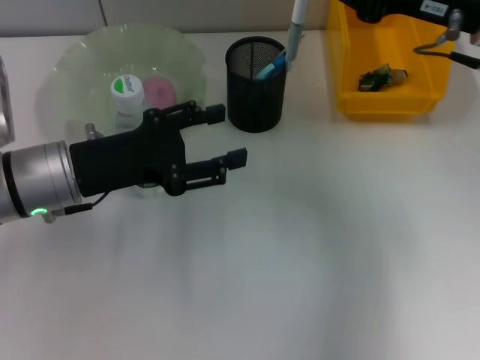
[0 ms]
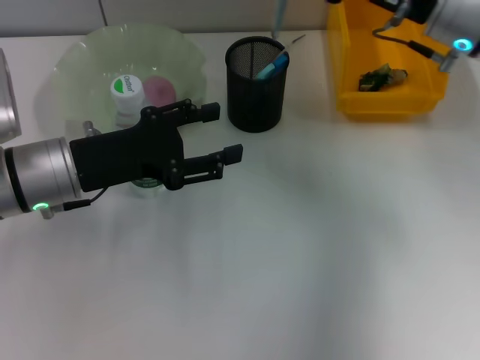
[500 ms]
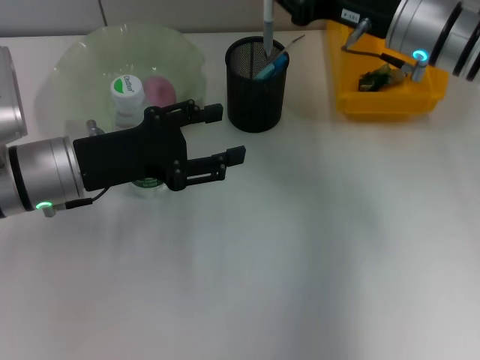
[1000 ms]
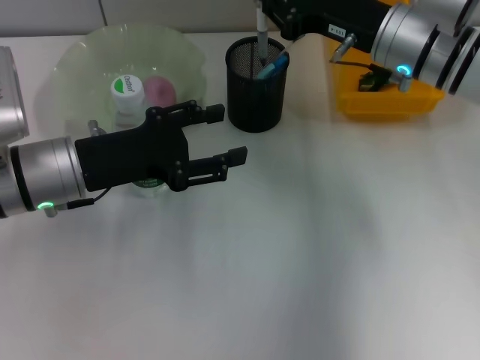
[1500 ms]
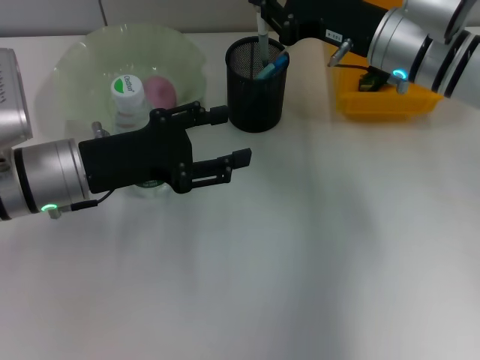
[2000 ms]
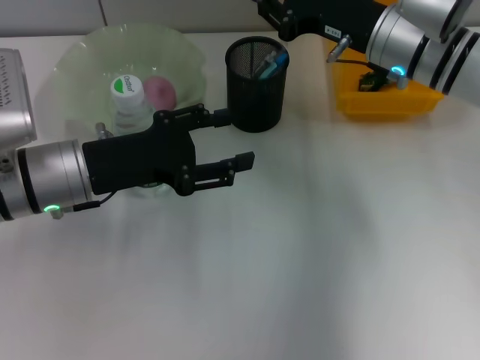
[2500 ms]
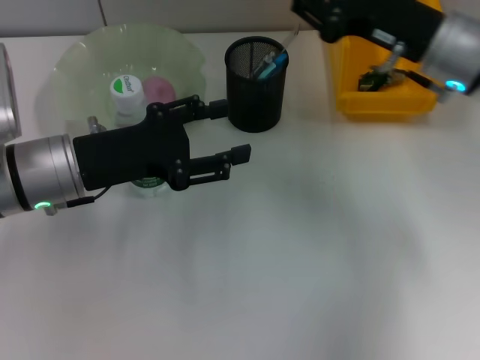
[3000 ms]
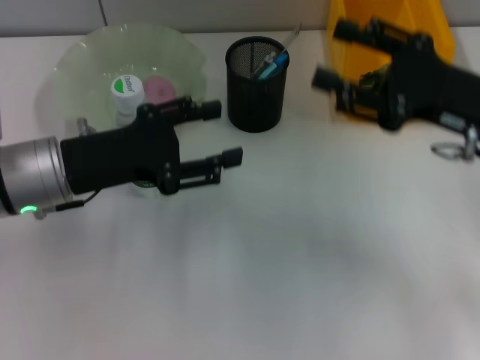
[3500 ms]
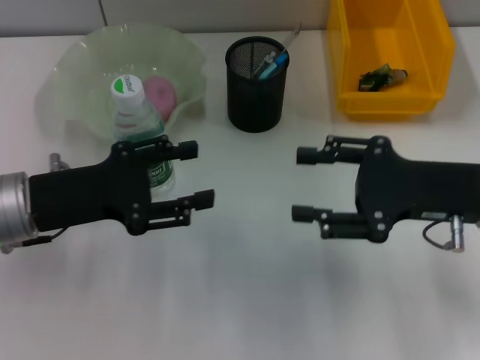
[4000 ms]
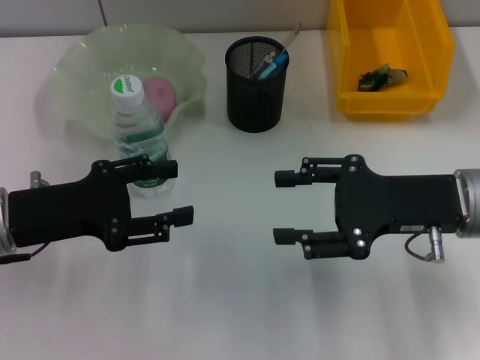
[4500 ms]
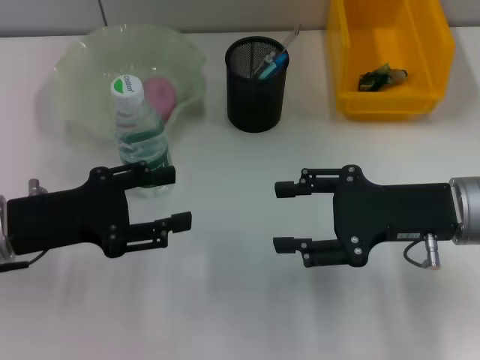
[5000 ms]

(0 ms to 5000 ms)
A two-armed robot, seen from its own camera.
Step, 0 ms - 3000 ms: Place the gray spring-action pen into the pen holder with the right hand.
0 ms - 2500 ms: The right gripper moves downward and to the left, some 10 cm.
2500 ms - 5000 ms: The right gripper travels backward and to the right by approximately 15 cm, and opens up. Meanwhile the left gripper goes some 5 cm to the left.
